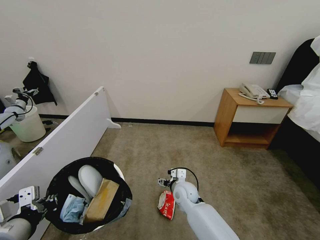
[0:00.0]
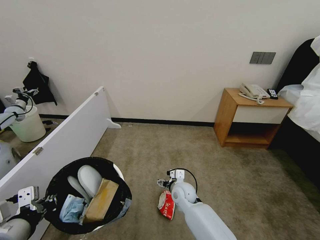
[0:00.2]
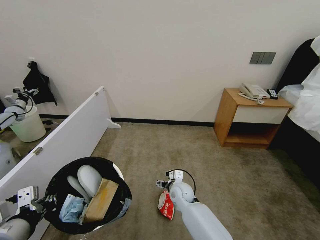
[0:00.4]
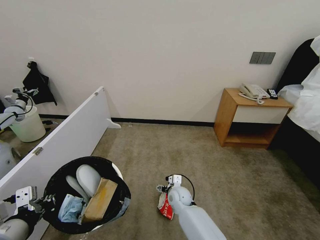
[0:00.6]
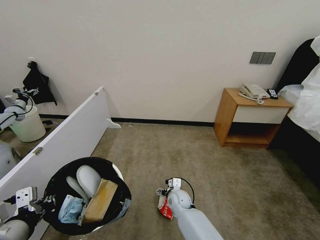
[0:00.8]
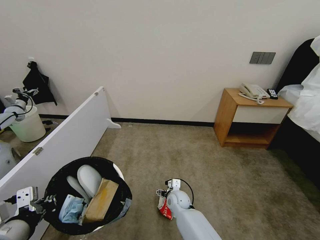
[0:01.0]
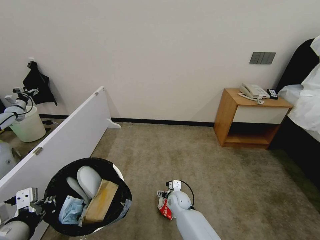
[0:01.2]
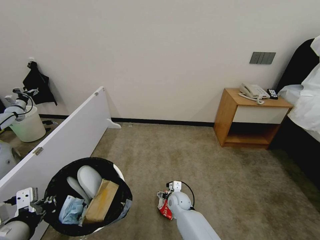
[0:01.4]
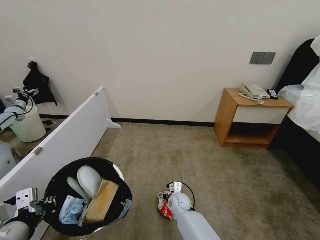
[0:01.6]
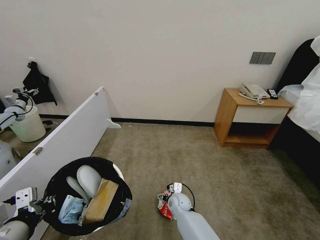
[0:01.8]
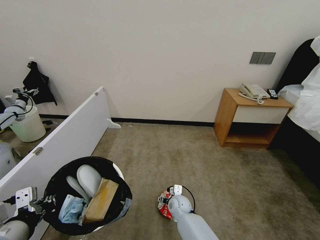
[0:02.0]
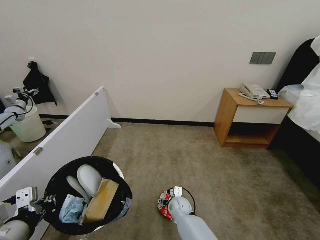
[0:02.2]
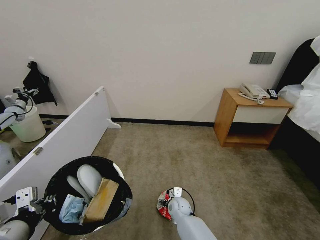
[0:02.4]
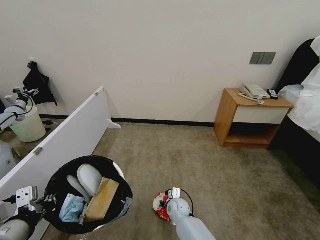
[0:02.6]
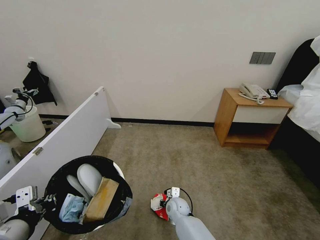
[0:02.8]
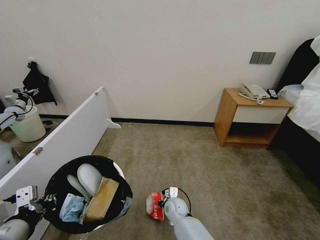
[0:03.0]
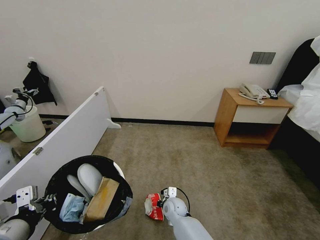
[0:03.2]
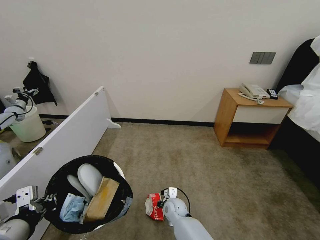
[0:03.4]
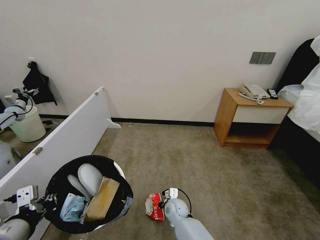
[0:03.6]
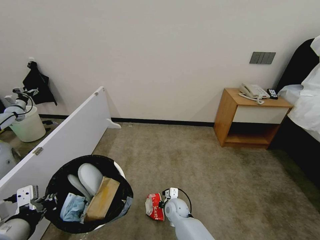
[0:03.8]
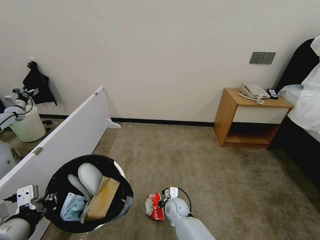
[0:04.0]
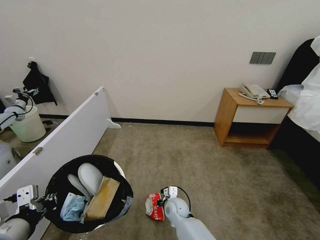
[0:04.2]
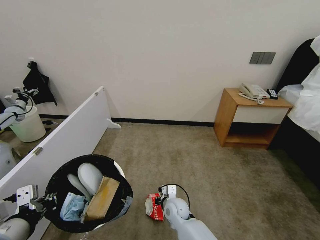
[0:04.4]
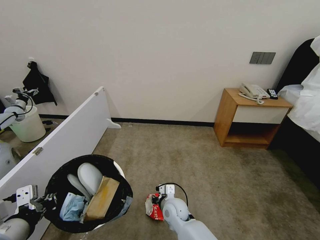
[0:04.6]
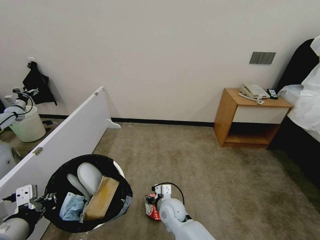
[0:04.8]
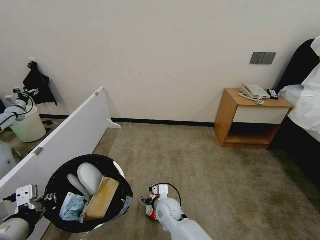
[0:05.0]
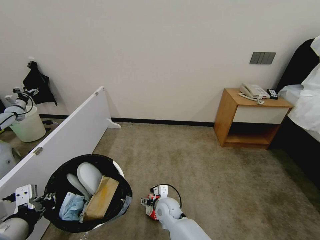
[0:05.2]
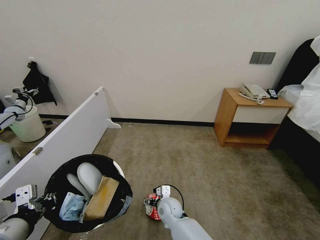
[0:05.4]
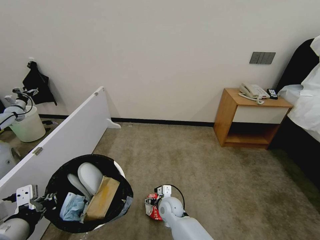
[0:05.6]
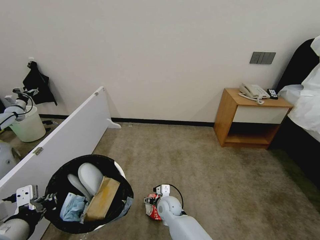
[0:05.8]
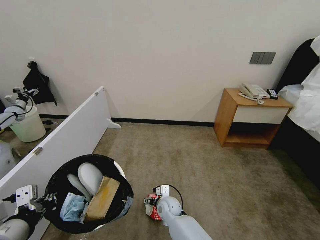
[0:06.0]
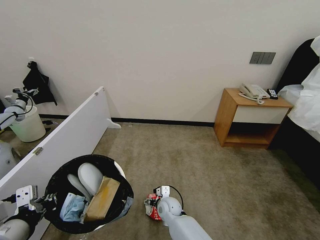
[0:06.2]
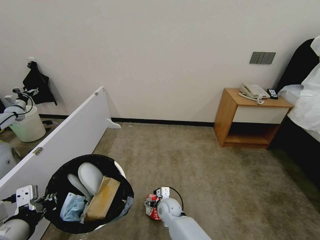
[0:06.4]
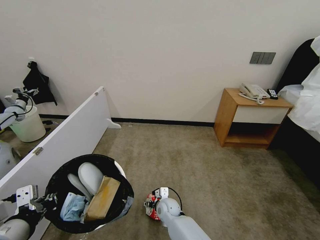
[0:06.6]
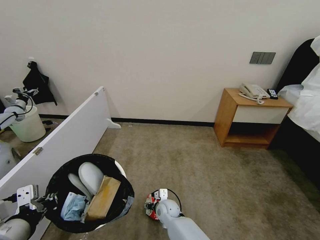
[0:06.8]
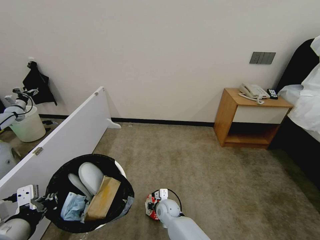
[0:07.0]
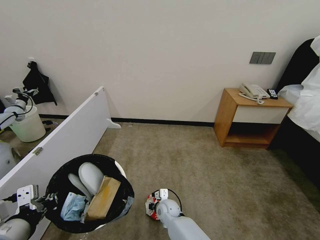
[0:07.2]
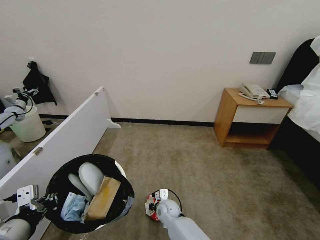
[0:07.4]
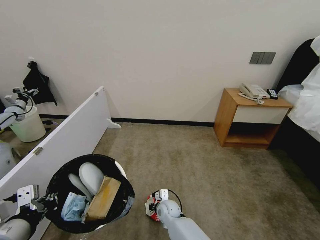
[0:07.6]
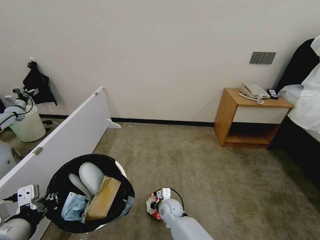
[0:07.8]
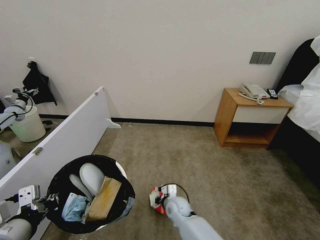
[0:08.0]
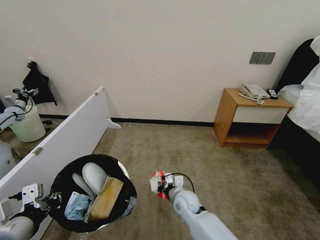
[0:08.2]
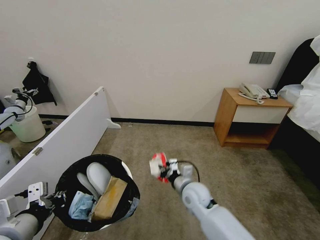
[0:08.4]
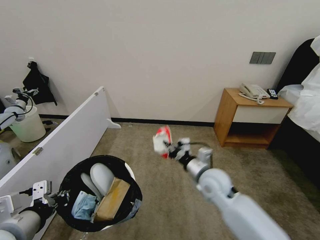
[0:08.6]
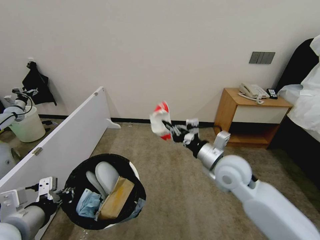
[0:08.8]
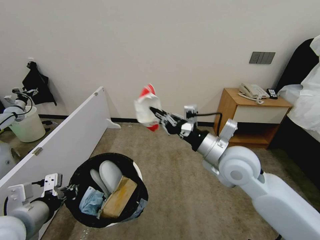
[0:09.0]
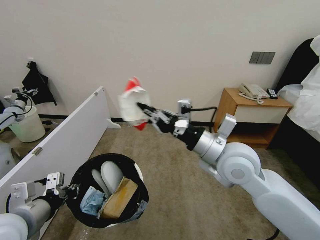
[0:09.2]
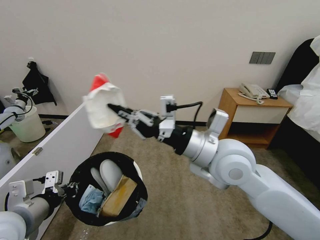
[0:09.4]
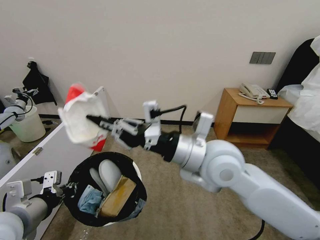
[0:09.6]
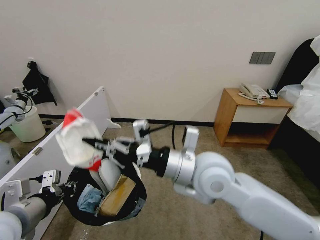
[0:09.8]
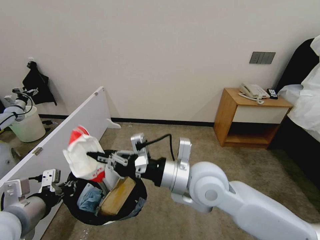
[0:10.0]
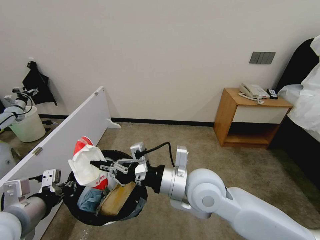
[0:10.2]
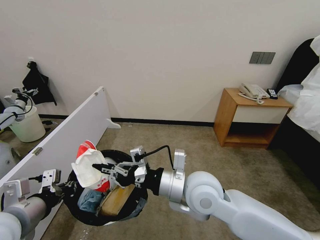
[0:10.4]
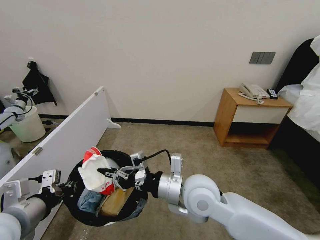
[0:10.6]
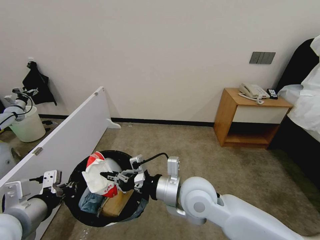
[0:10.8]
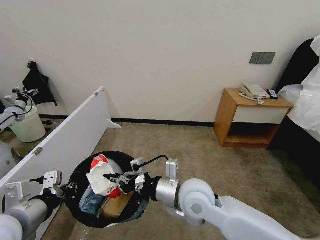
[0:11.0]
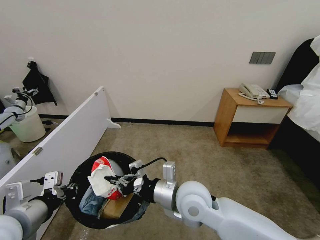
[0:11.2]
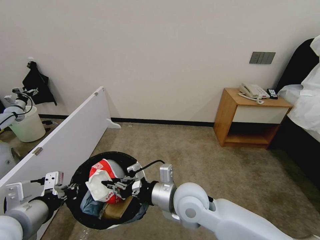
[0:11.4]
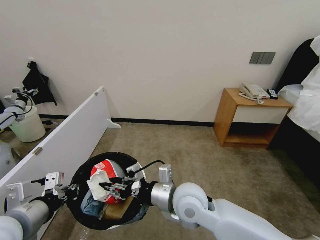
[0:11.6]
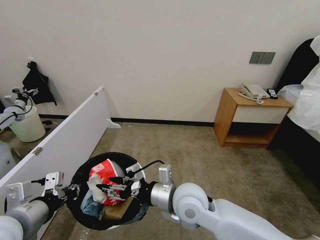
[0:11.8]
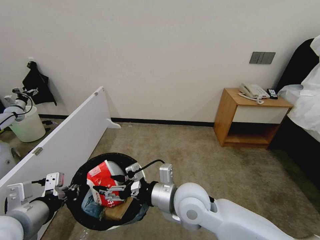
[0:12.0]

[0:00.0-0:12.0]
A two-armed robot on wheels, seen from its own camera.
Task of the whole recording: Pick up the trash bin, then pick up the garbage from the floor and place it into the trash bin.
0:00.0 to 0:01.6: The right gripper travels downward by about 10 cm.
0:01.6 to 0:03.0: The right gripper closes.
0:03.0 to 0:04.4: The right gripper shifts by approximately 5 cm.
0:04.4 to 0:06.0: The right gripper opens its fingers.
0:06.0 to 0:07.6: The right gripper closes its fingers.
0:07.6 to 0:09.0: The right gripper heads upward and to the right, covering some 40 cm.
0:09.0 to 0:10.4: The right gripper travels to the left by approximately 10 cm.
0:10.4 to 0:12.0: The right gripper opens.

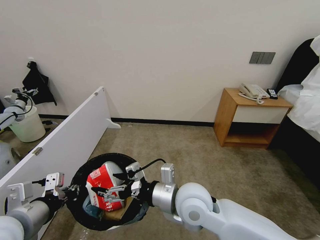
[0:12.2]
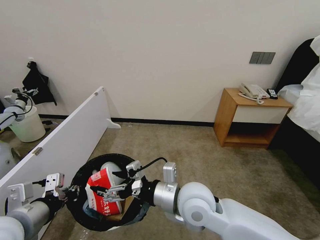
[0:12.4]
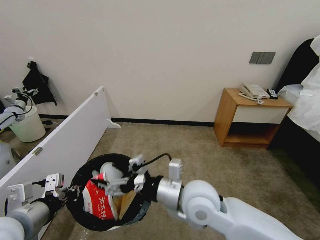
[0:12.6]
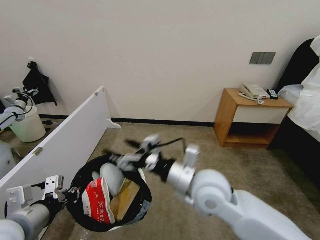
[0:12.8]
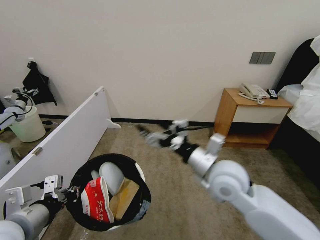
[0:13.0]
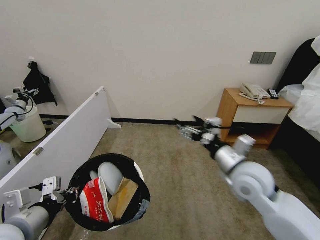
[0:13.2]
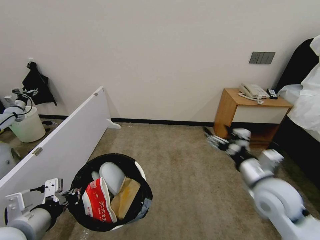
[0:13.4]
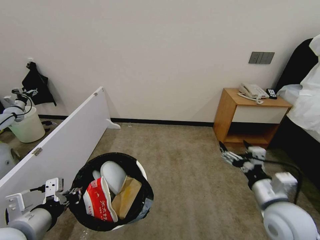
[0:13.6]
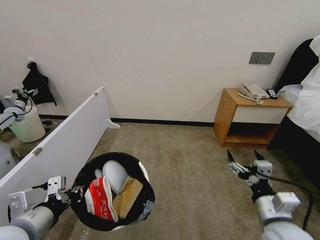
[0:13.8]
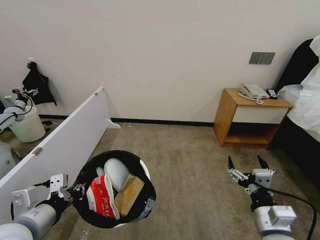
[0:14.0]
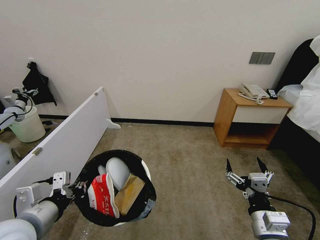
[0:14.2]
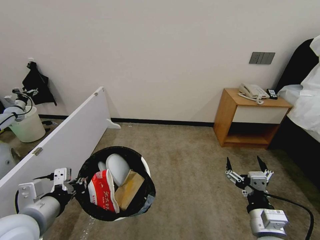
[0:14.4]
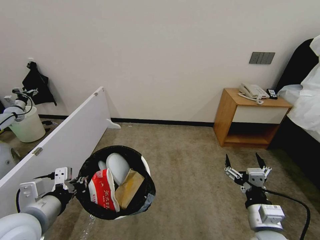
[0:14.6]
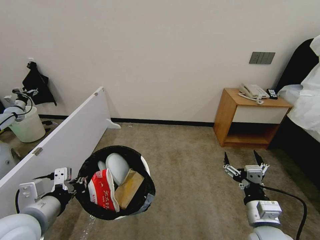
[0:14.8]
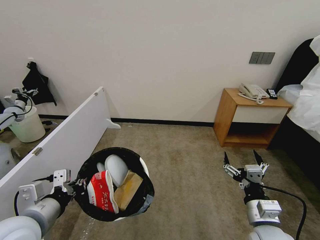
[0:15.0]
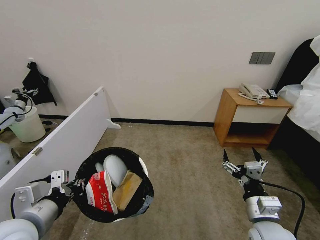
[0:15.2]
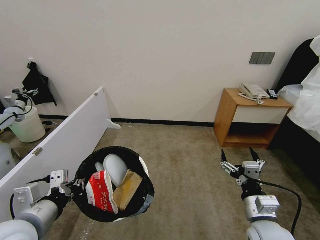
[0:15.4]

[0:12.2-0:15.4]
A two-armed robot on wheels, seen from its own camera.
Task of the whole recording: Pick up the trash bin, then pick up the garbage from the floor and place it into the trash bin.
0:12.2 to 0:13.8: The right gripper moves to the right, some 20 cm.
0:13.8 to 0:15.4: The grippers stay close to where they were, moving slightly.

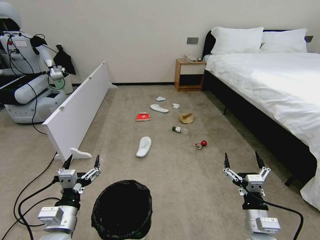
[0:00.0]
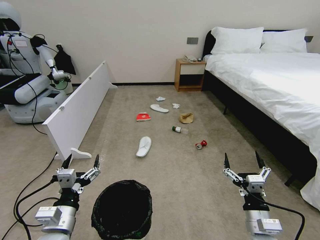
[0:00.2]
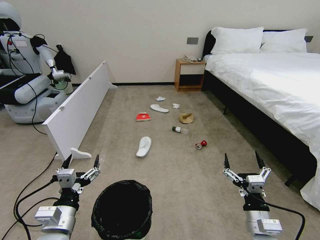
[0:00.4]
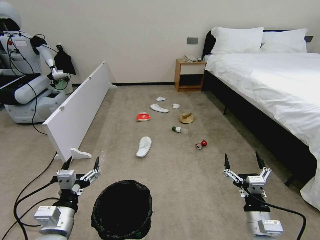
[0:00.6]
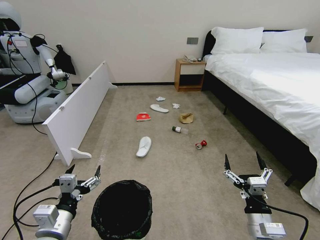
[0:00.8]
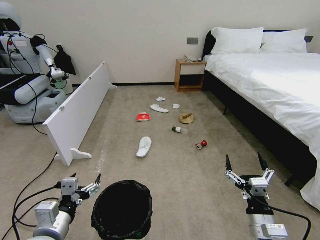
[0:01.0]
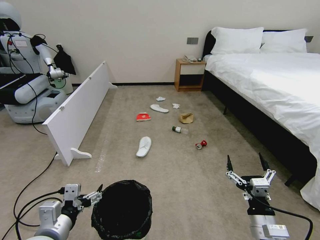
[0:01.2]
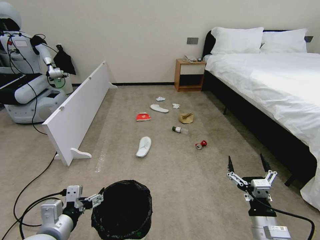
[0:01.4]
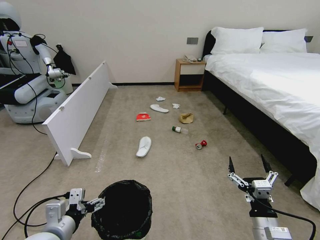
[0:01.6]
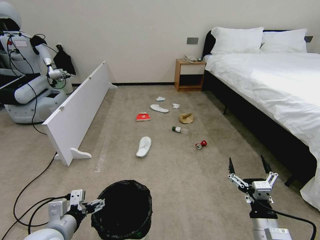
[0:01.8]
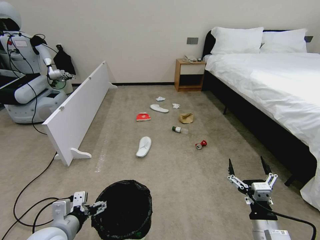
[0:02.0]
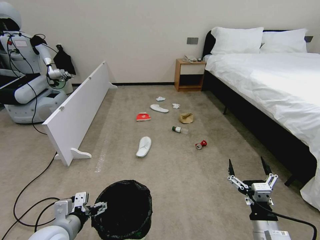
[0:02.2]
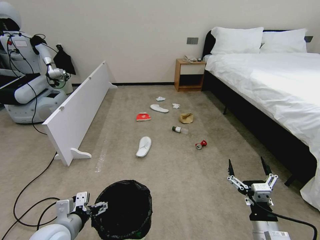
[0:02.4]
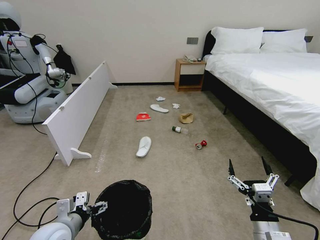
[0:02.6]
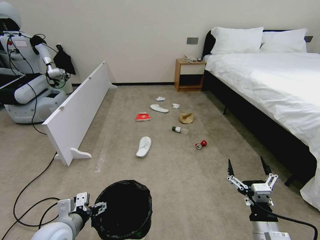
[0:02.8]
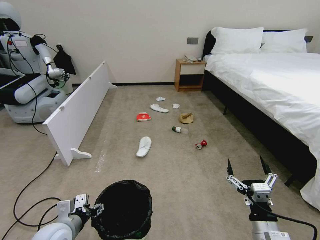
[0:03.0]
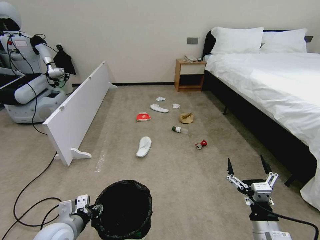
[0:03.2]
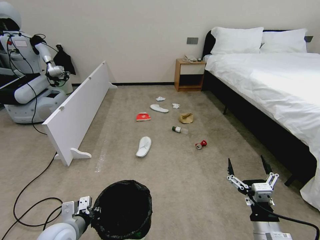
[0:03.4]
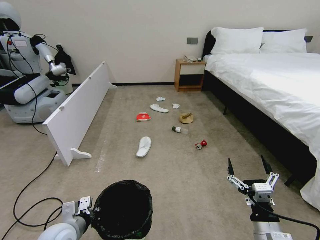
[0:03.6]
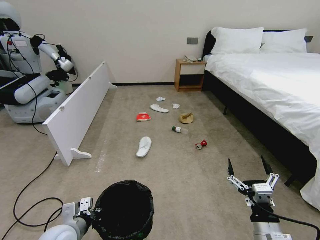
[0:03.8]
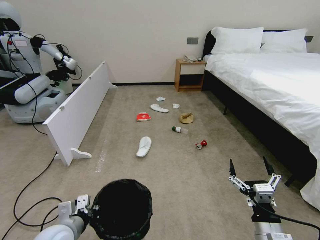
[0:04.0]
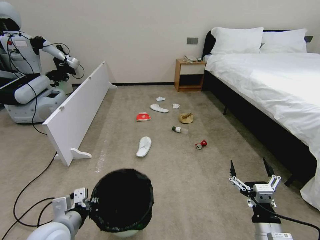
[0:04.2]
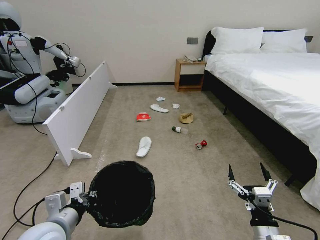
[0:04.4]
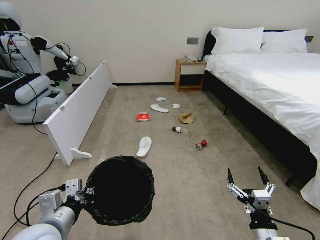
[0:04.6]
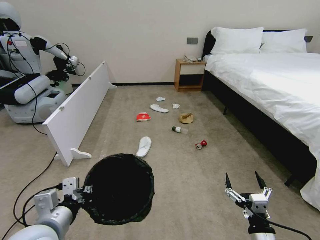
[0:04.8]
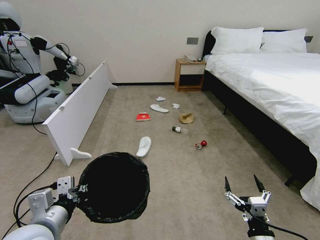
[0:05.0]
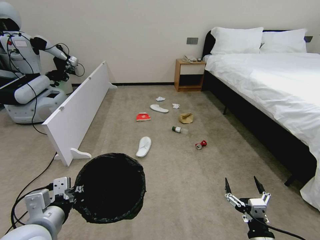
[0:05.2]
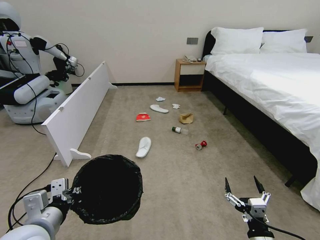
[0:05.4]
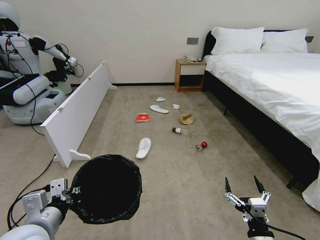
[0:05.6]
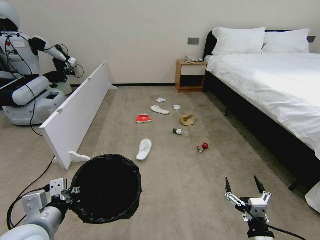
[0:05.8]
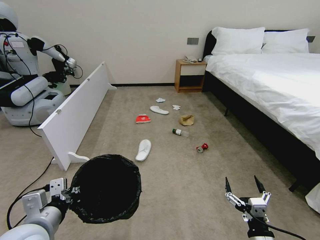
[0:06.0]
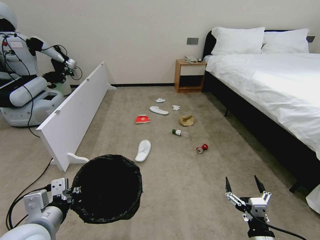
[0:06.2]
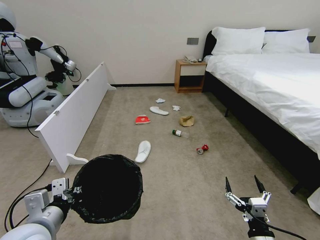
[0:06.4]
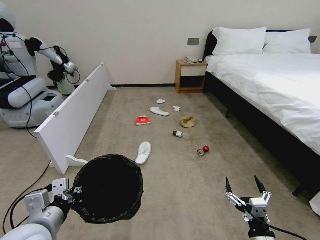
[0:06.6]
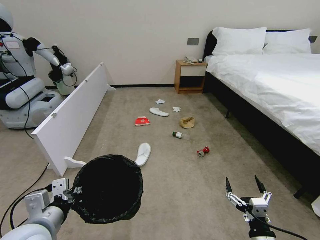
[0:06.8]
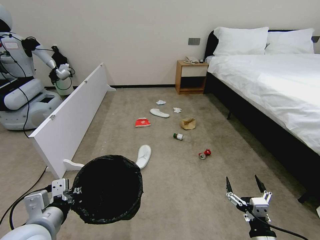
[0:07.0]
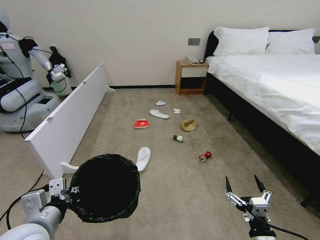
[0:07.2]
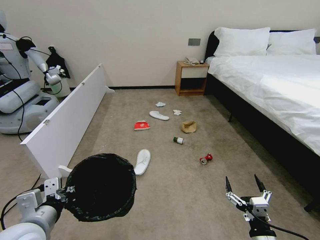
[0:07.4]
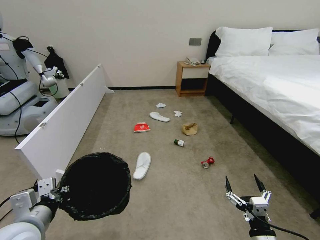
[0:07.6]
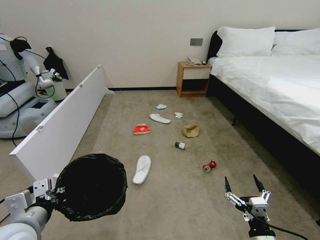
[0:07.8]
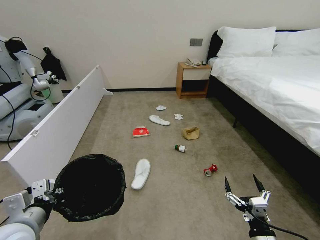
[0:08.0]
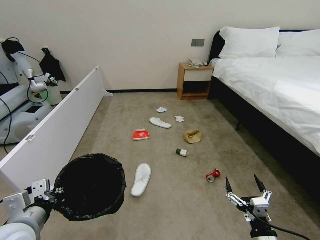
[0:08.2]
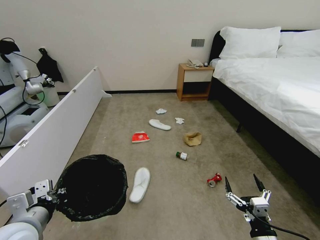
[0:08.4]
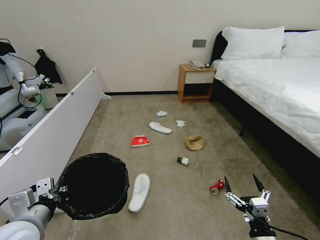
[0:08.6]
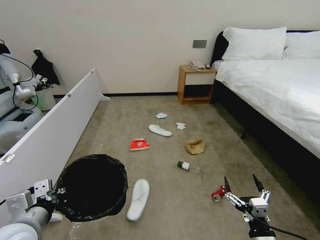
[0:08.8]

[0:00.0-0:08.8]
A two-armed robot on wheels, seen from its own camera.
Task of the whole recording: Pick up the trash bin, then pick up the garbage from the floor and place it into the trash bin.
0:01.4 to 0:03.0: The left gripper is displaced downward by approximately 5 cm.
0:03.0 to 0:04.4: The left gripper travels upward by roughly 10 cm, and closes its fingers.
0:04.4 to 0:05.8: The grippers make only small movements.
0:05.8 to 0:07.4: Both grippers stay put.
